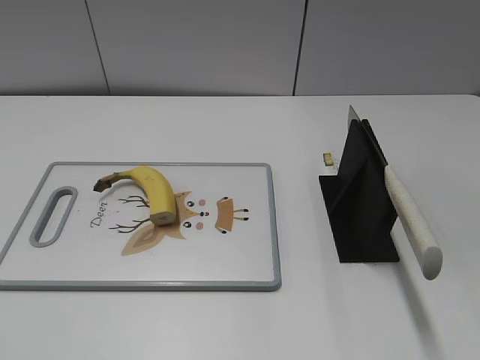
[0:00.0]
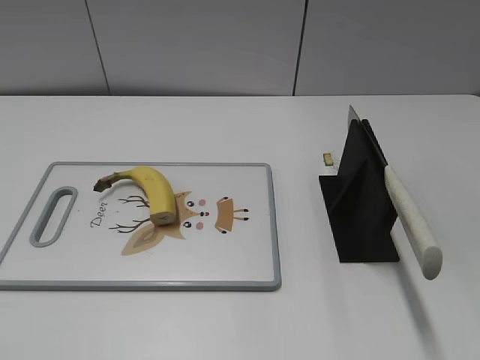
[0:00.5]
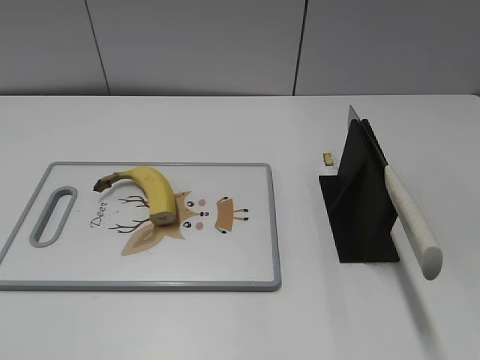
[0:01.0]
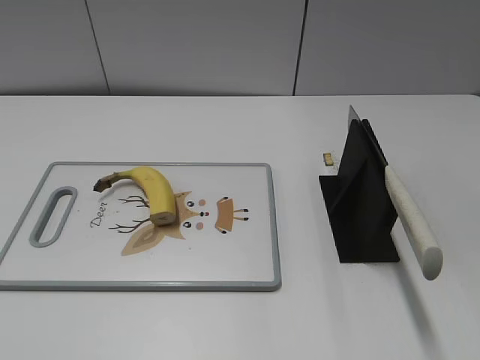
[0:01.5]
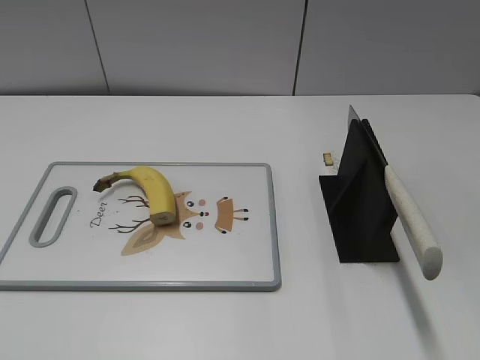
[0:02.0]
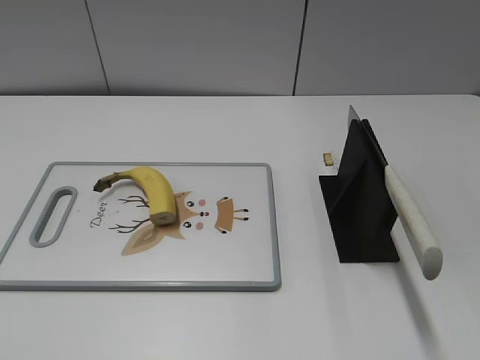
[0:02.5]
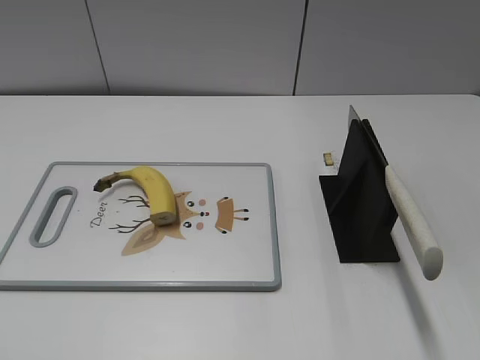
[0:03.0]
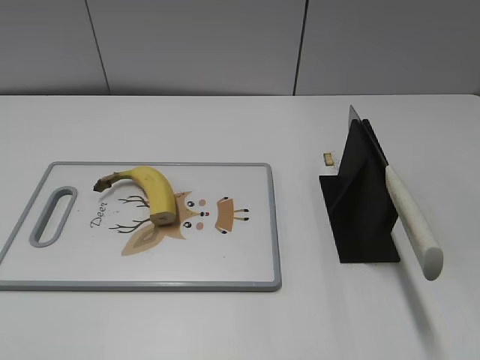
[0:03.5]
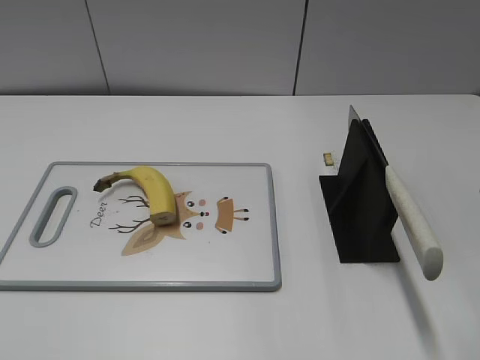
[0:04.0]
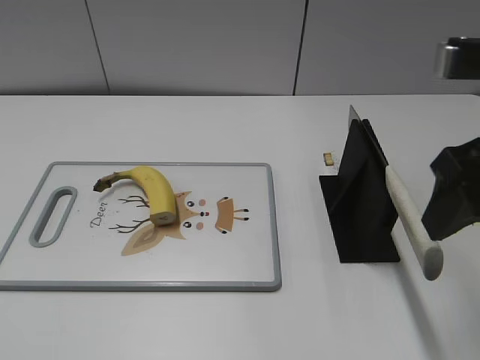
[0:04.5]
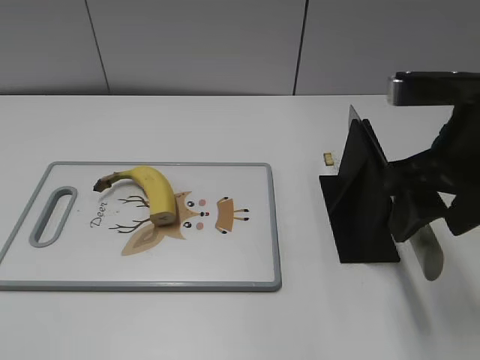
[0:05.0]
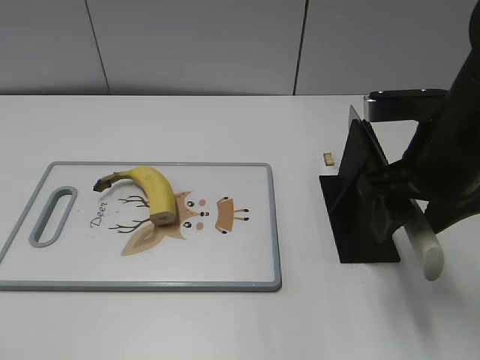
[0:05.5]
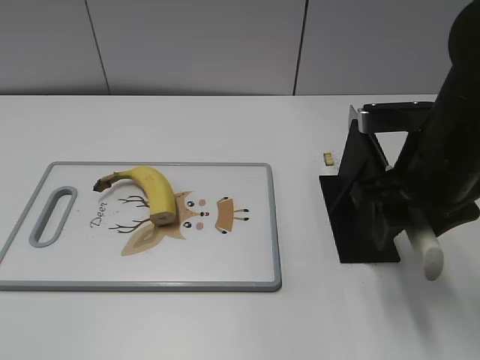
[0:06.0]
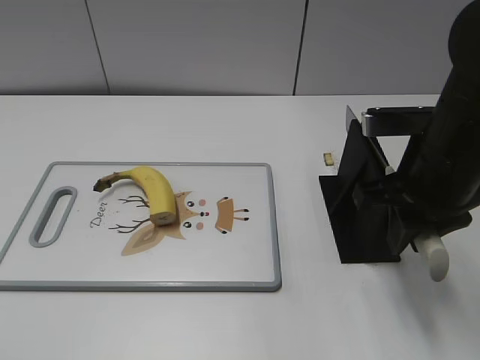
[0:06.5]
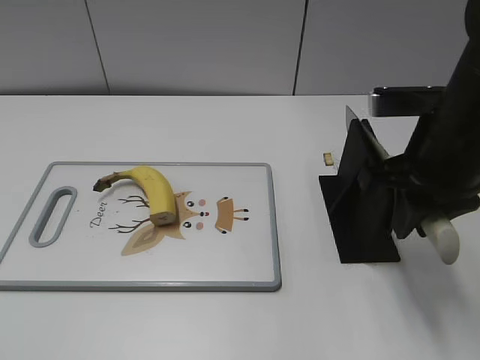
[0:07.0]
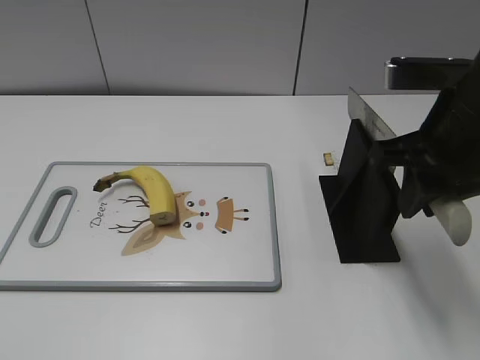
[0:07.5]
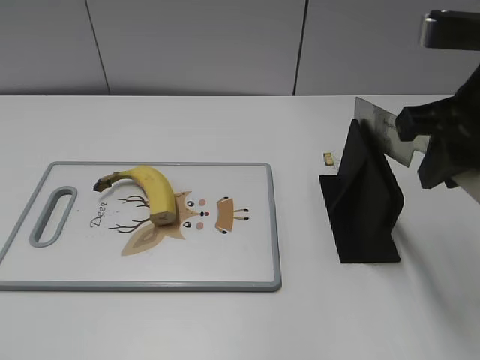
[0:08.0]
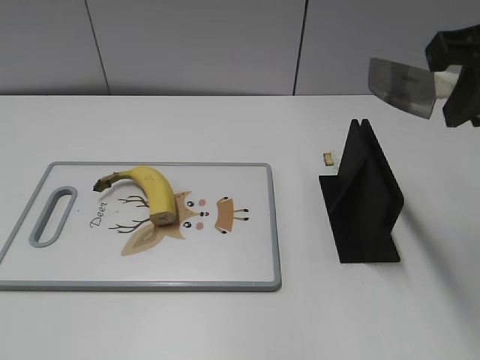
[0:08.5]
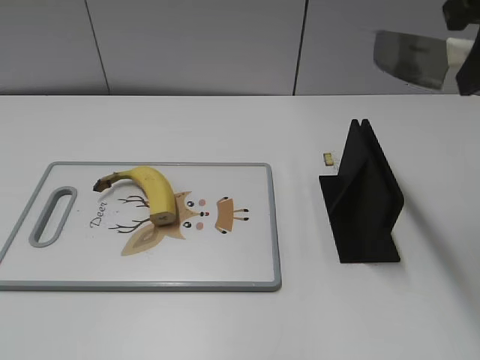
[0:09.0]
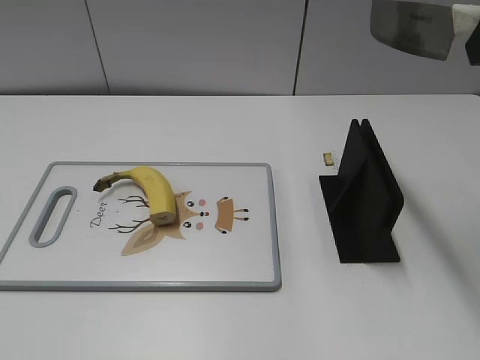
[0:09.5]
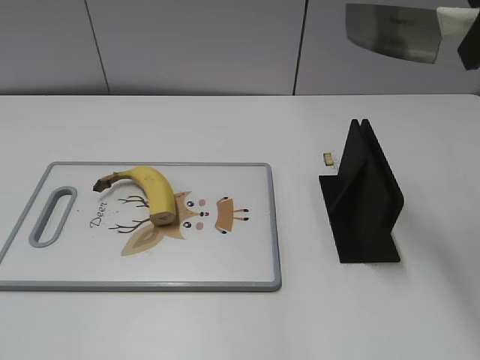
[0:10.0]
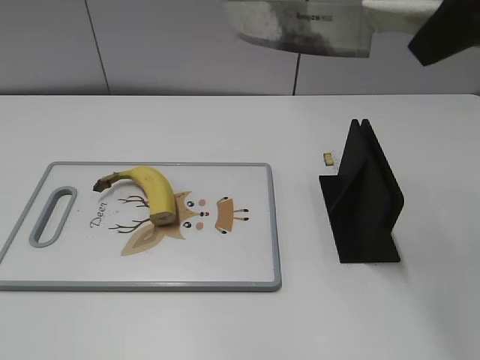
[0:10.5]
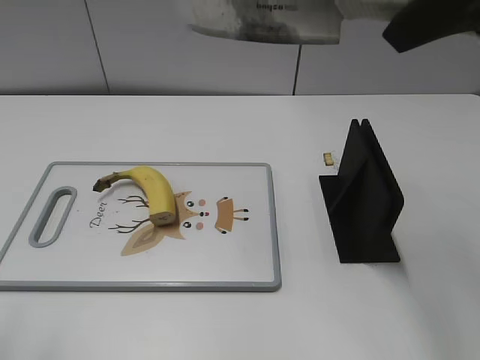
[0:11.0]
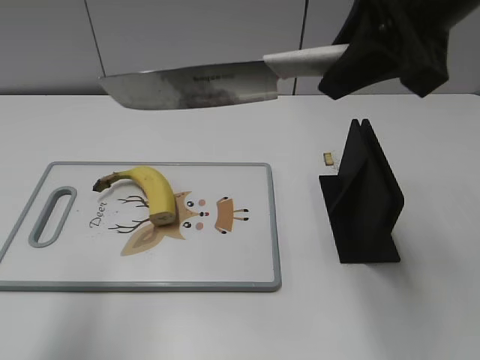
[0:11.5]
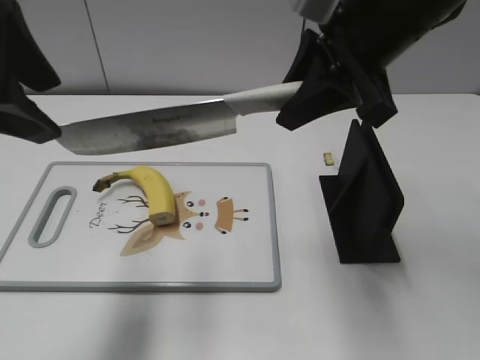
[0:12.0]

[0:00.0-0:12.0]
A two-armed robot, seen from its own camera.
Task of the whole recording: cut banana.
Step, 0:00.0 to 0:08.0: Grab the knife handle with your right hand.
0:04.0 to 0:06.0: The right gripper shifts about 15 cm downward and forward.
0:06.0 to 0:08.0: The right gripper goes some 10 cm upward, and closes.
0:08.0 to 0:10.0: The right gripper heads upward, covering about 10 cm.
0:10.0 to 0:12.0: The left gripper moves forward and to the right, about 25 cm. Meanwhile the right gripper is displaced to the left, downward and forward by about 15 cm.

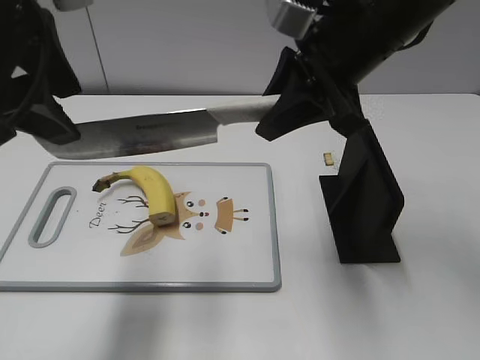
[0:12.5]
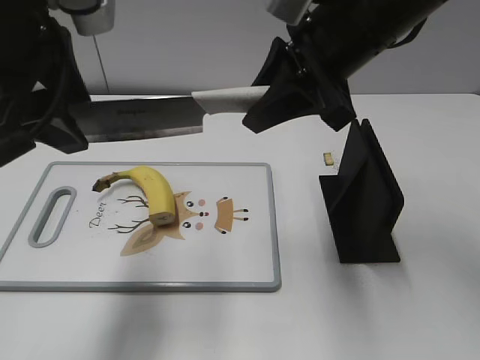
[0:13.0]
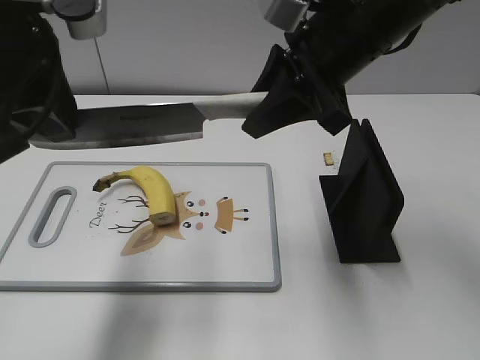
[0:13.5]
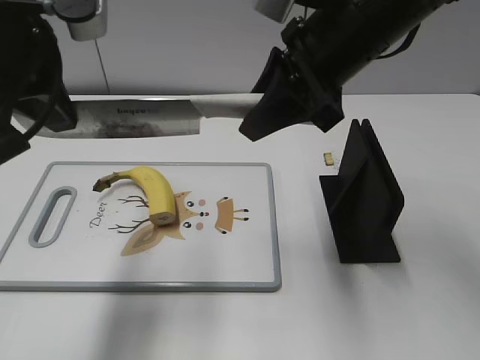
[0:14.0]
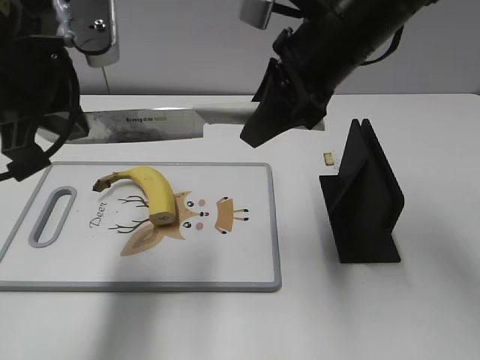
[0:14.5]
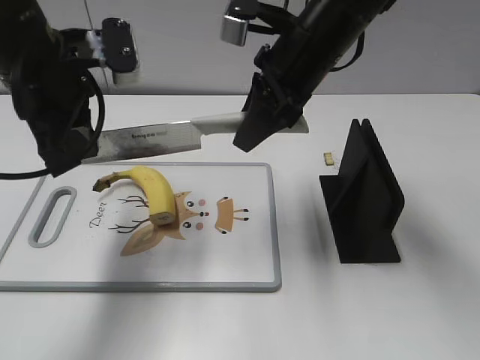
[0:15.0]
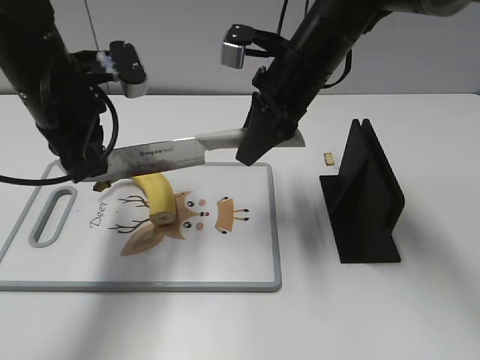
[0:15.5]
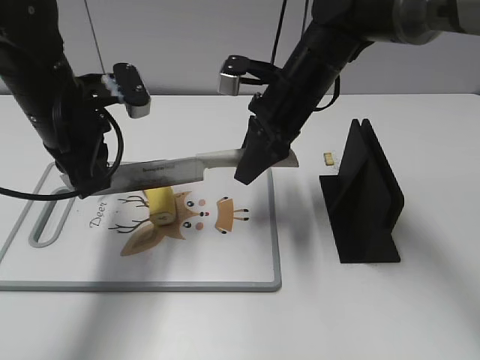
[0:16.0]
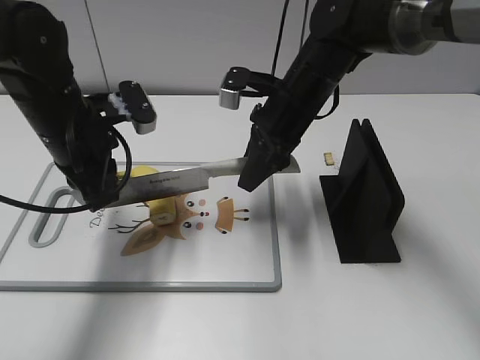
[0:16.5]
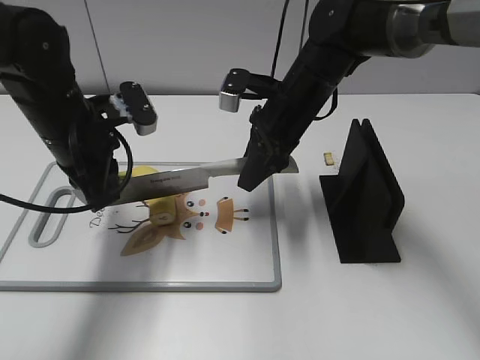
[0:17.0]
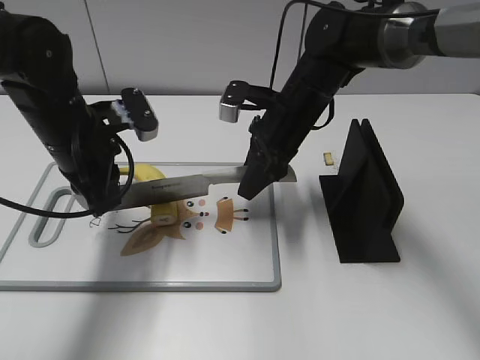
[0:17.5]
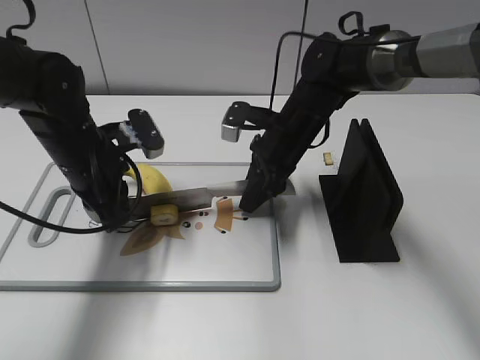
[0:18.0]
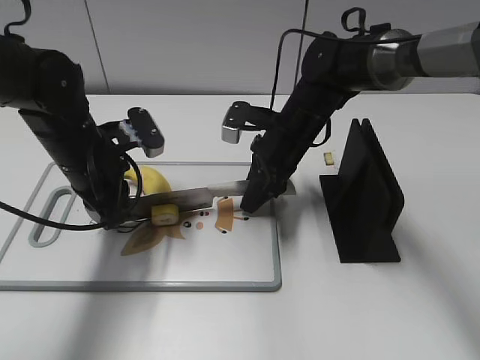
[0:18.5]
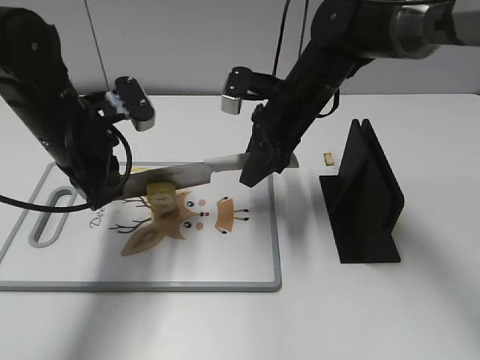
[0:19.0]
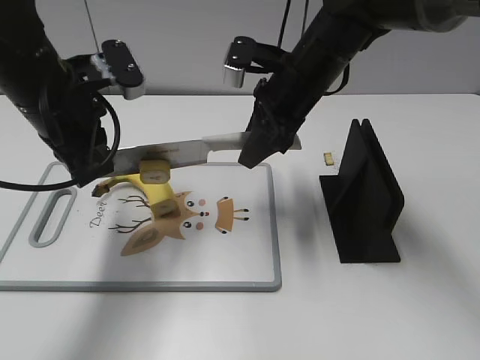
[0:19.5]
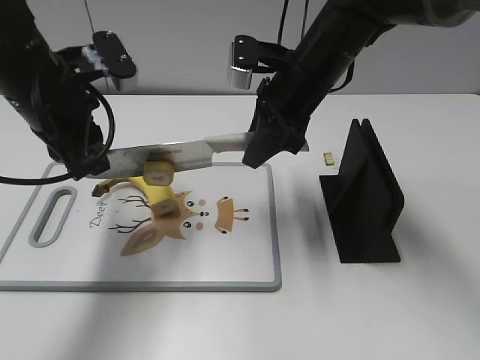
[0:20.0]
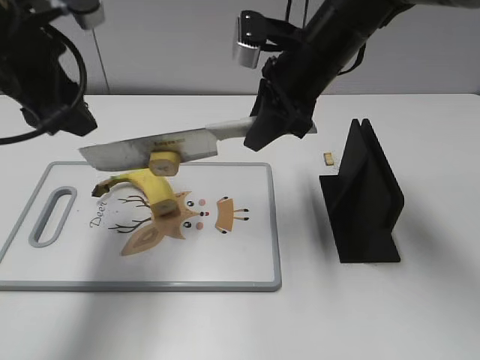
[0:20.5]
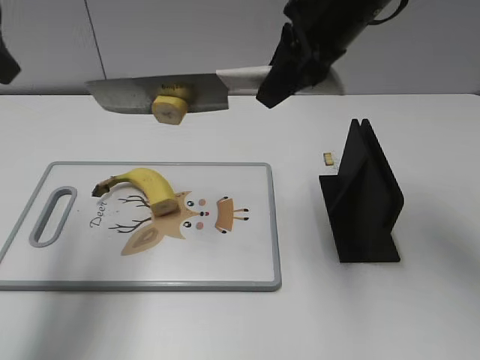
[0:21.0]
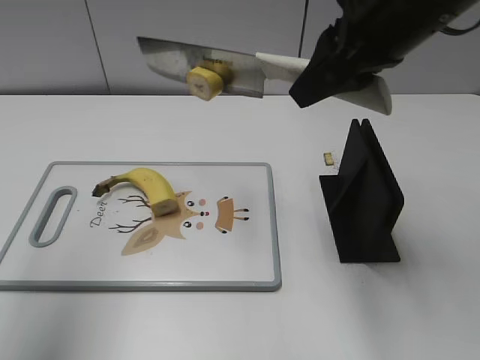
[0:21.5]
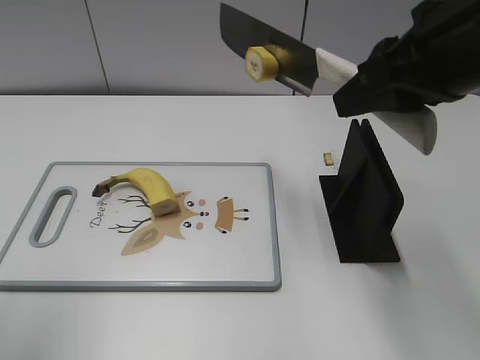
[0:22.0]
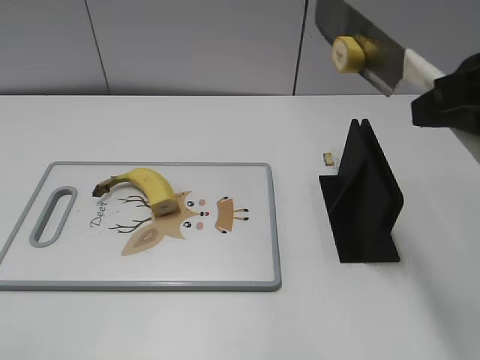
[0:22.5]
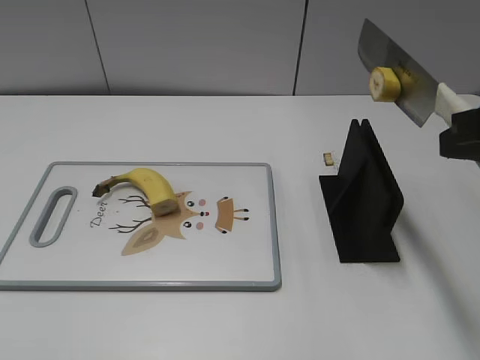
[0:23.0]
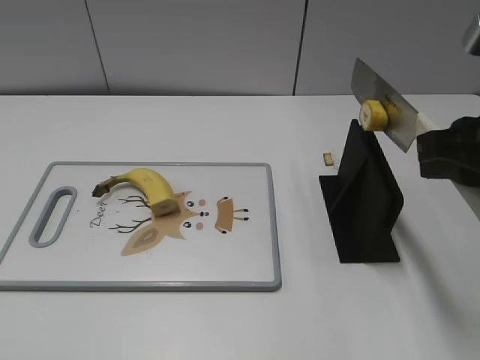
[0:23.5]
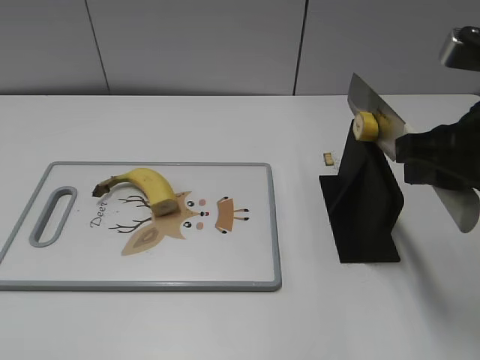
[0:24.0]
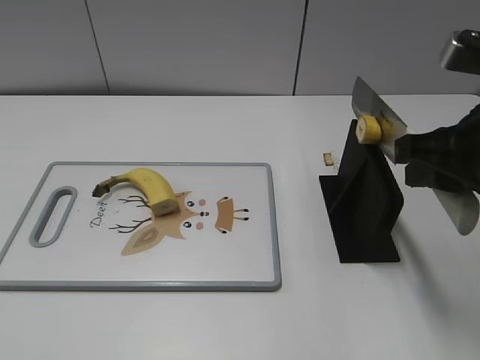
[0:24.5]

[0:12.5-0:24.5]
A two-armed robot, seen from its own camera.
Task of the whole recording: cut banana.
Step, 0:12.5 to 0:17.0: Lift the knife with your right hand.
Step, 0:17.5 to 0:23.0: Cut the banana with your right hand.
0:12.5 to 0:14.5: The left gripper closes up.
0:14.5 to 0:16.5: The grippers both shift downward and forward by roughly 15 cm.
0:16.5 to 0:18.5: The right gripper travels downward by about 5 cm.
0:18.5 to 0:20.5: The grippers both shift upward by approximately 15 cm. The left gripper opens.
0:20.5 to 0:22.5: The left gripper goes about 25 cm backward and to the left. The right gripper goes approximately 25 cm backward, to the right and upward.
0:22.5 to 0:24.5: The right gripper shifts some 5 cm downward.

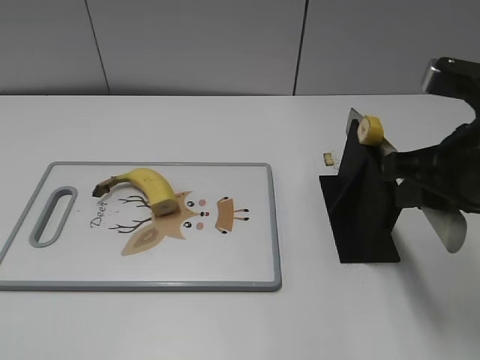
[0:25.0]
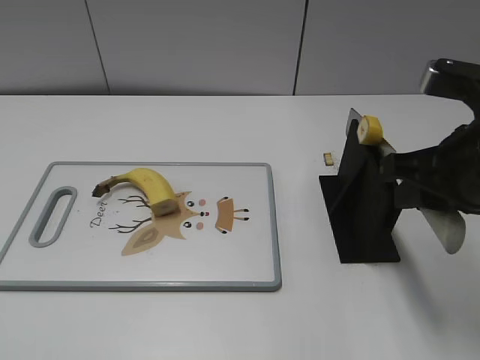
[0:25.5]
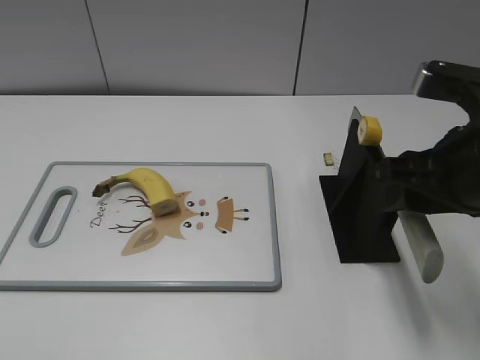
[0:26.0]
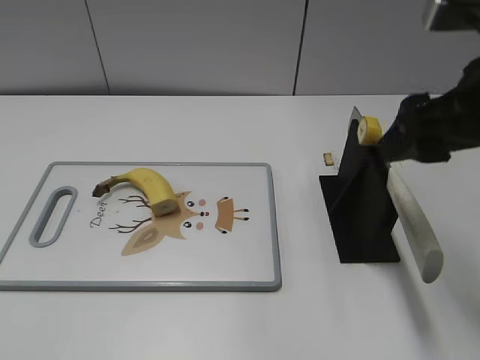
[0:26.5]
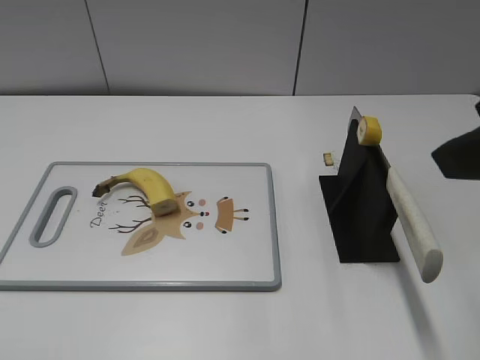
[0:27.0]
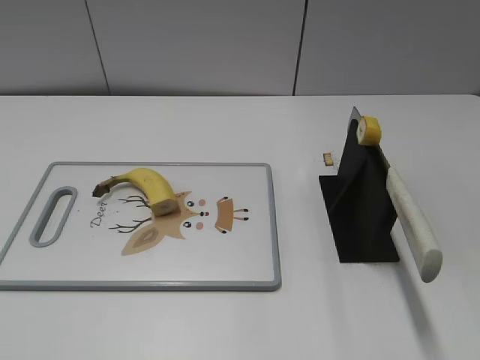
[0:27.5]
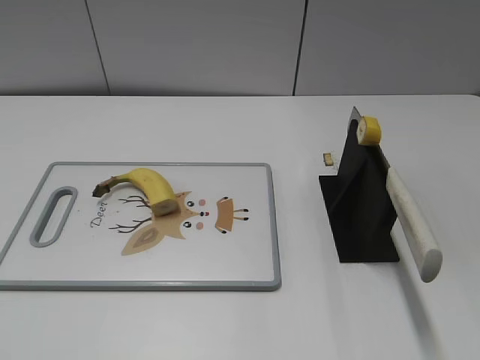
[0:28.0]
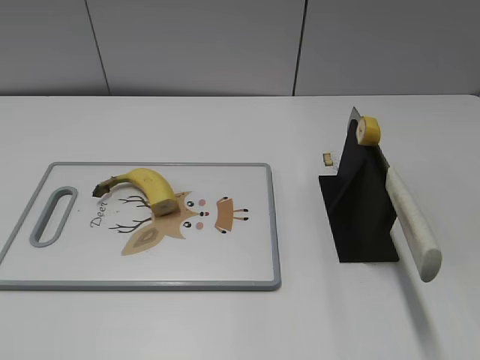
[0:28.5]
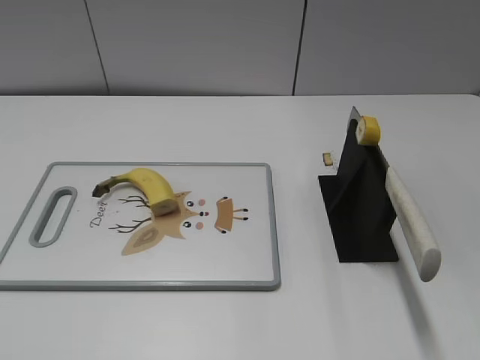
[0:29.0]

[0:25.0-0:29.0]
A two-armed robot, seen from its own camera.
Task of the whole recording: cut banana.
0:25.0 to 0:27.0: The right gripper moves upward and backward, approximately 15 cm, and opens its fingers.
0:27.0 to 0:29.0: The right gripper moves backward and to the right, some 20 cm.
